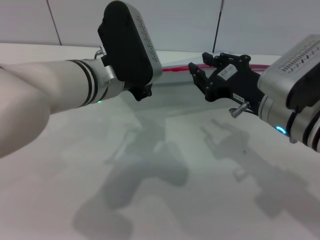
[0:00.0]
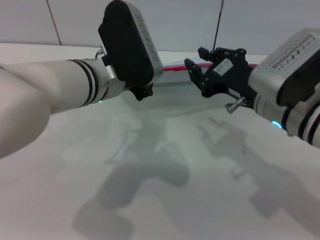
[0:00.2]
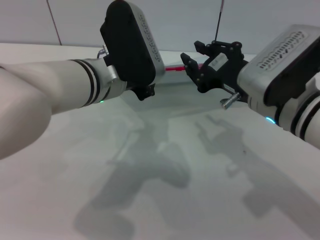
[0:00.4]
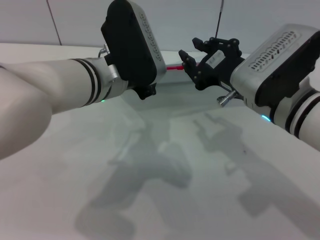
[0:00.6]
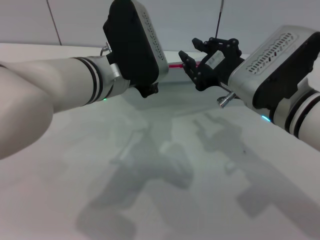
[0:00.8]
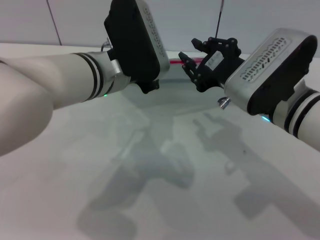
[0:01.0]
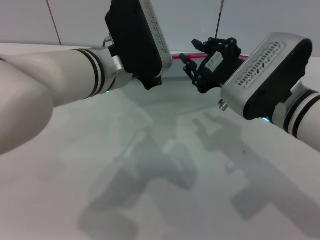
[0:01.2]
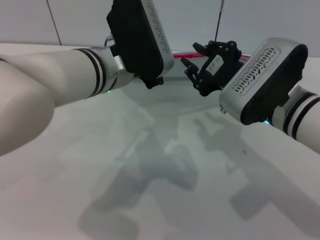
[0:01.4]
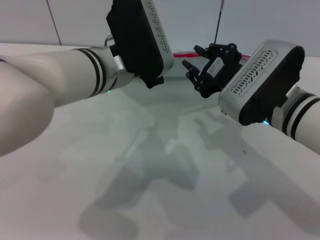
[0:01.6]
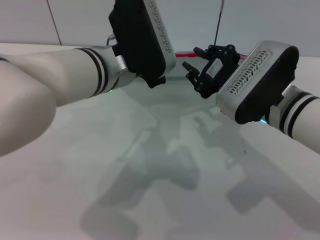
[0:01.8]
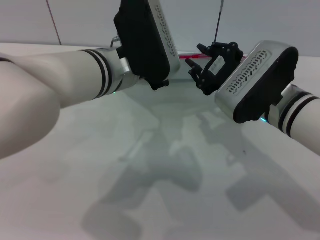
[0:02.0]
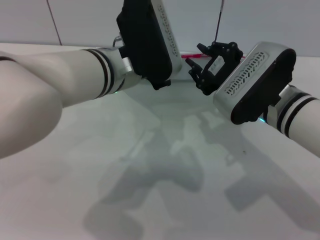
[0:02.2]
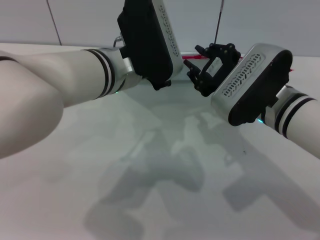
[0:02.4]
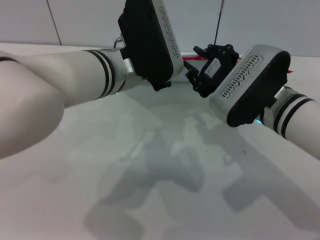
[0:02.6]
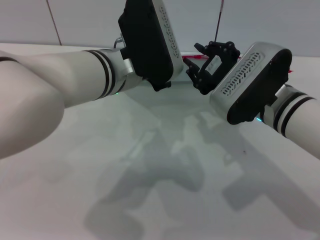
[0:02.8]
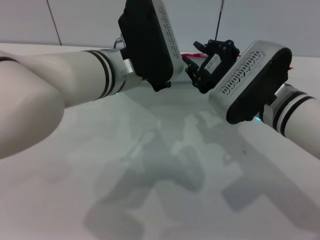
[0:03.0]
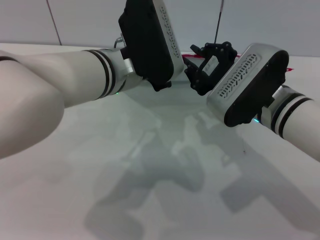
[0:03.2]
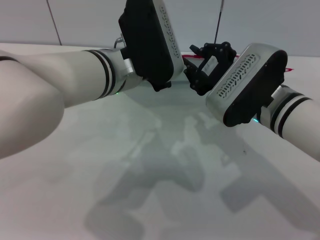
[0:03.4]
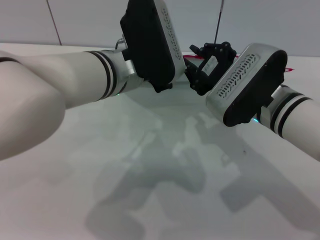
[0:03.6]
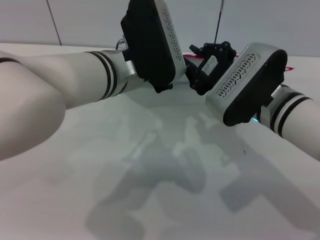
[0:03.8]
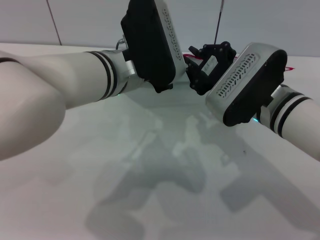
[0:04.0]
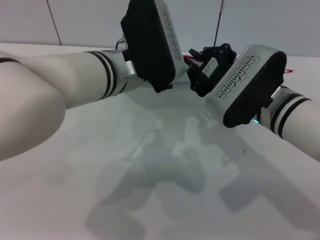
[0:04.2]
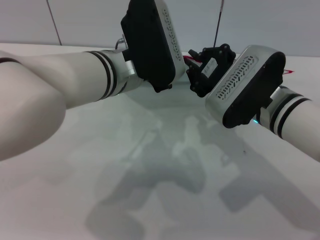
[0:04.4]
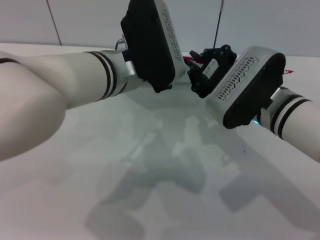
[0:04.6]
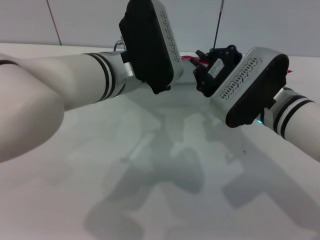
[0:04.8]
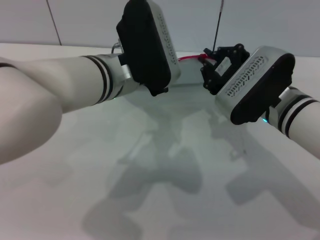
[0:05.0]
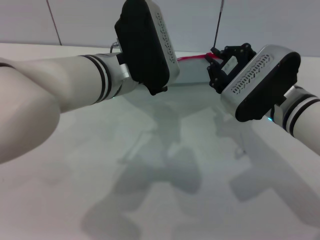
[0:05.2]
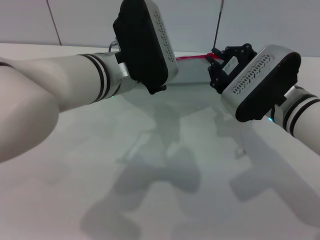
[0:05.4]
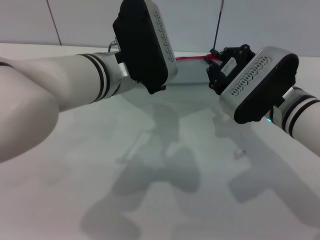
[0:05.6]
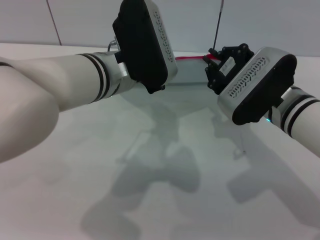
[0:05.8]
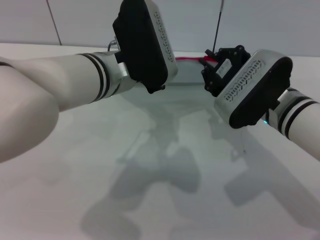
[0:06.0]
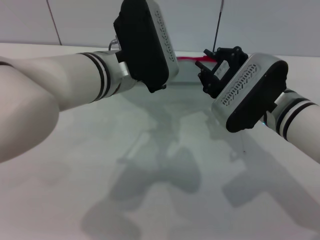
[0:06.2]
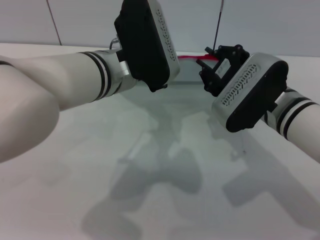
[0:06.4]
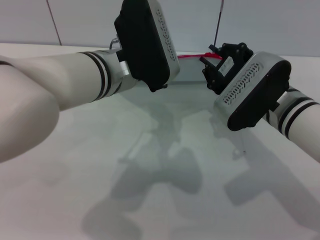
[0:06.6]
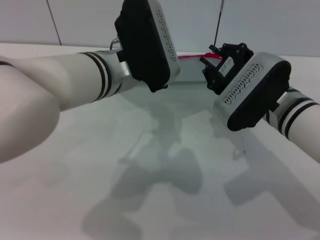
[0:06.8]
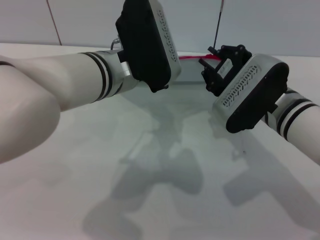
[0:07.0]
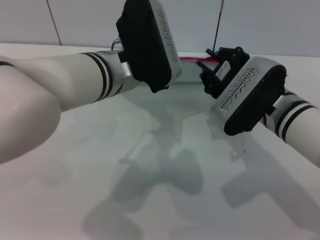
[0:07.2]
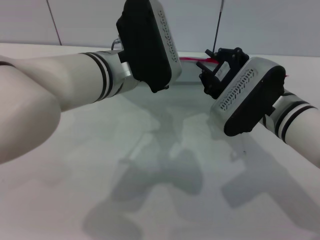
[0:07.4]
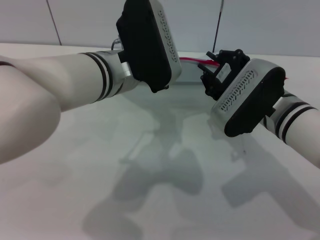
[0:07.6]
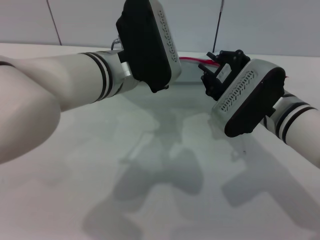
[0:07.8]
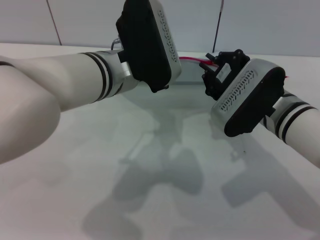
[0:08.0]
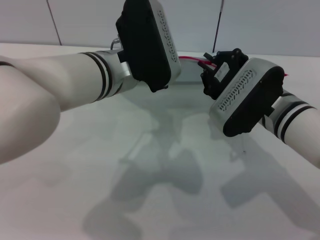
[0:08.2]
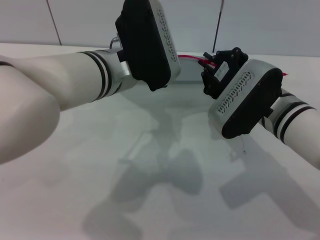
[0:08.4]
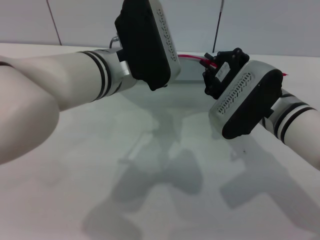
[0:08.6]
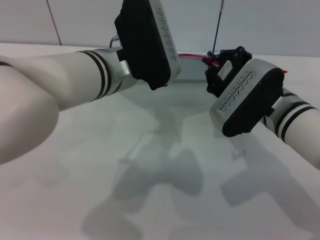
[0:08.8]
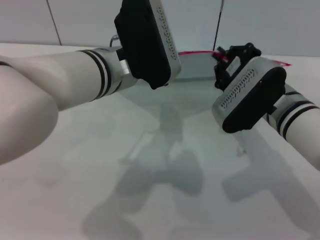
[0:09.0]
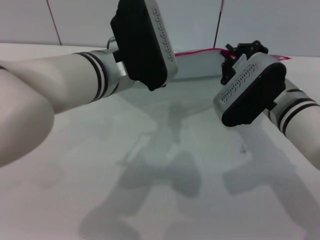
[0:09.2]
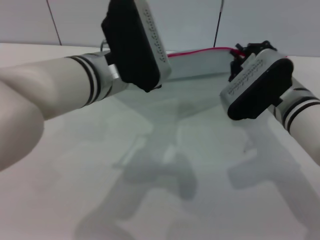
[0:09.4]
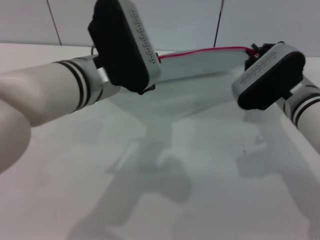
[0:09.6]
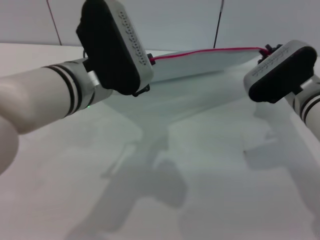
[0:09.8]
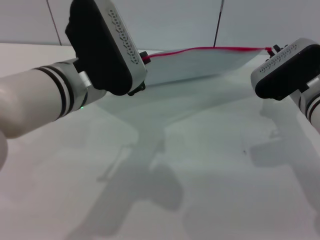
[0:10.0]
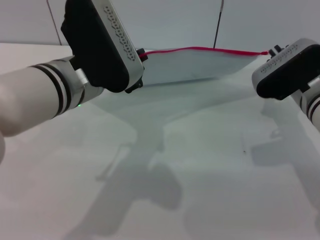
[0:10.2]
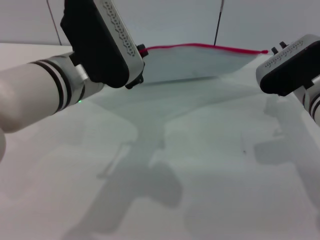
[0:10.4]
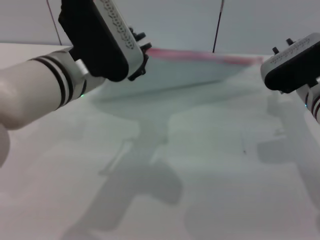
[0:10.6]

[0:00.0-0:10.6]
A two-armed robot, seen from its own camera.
Step, 0:00.0 to 0:10.4: Pulling up the zipper on the transparent plastic bag with the right gripper to close it.
0:01.6 to 0:03.0: Both grippers stay about where they are.
0:03.0 to 0:04.6: The right gripper closes.
0:04.6 to 0:06.0: There are only small adjustments of the grippers.
0:06.0 to 0:07.6: The right gripper opens.
0:07.6 to 0:09.0: The right gripper closes up.
0:09.0 to 0:10.6: The right gripper travels to the right by approximately 5 cm, and opens up.

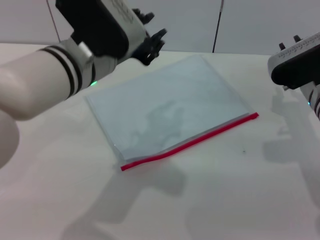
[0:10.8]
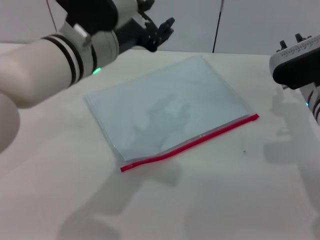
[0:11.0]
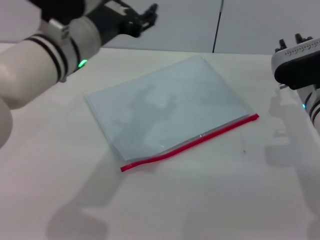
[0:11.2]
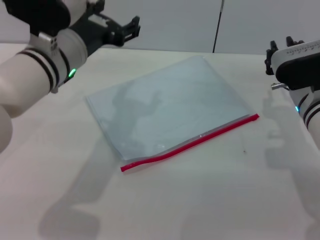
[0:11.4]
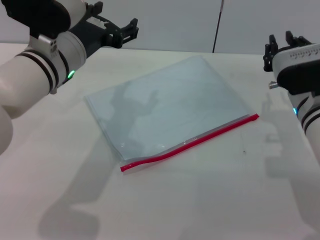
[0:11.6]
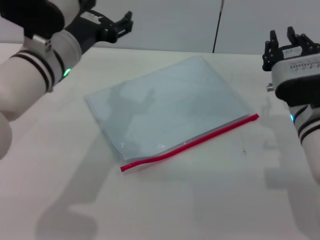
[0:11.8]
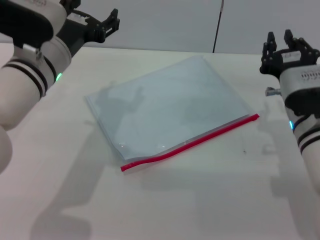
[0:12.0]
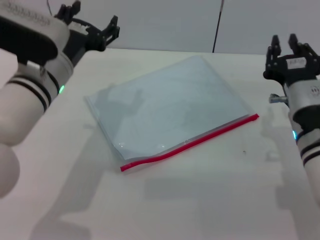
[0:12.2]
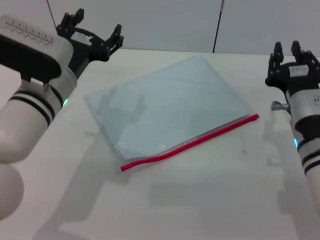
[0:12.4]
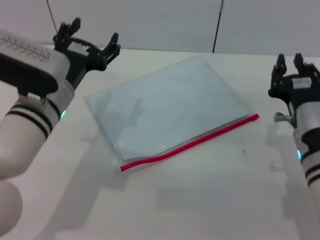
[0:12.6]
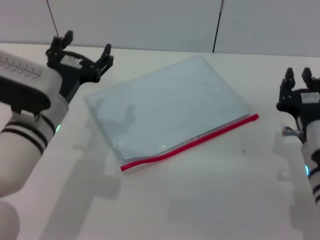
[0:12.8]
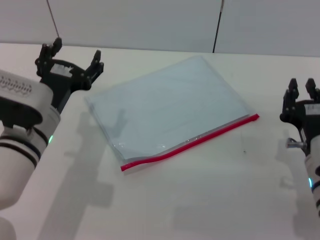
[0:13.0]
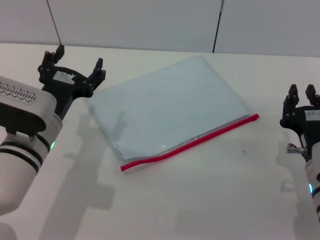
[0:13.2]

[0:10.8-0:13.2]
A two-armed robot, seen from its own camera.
0:10.8 to 0:12.0: The left gripper is displaced to the left by about 5 cm, and opens up; the right gripper heads backward, covering some 5 cm.
0:12.0 to 0:13.2: The left gripper moves backward and downward, approximately 10 cm. Meanwhile the right gripper moves backward, some 10 cm.

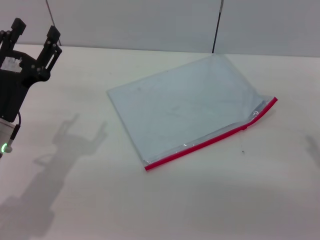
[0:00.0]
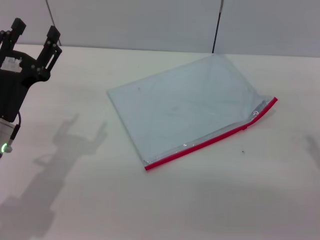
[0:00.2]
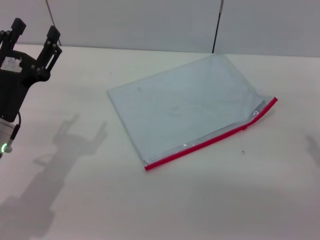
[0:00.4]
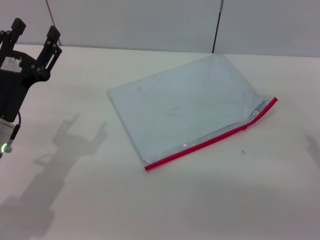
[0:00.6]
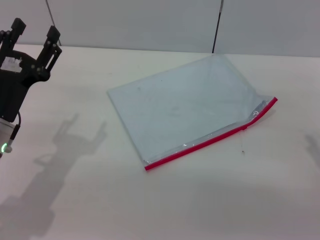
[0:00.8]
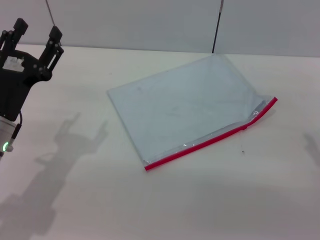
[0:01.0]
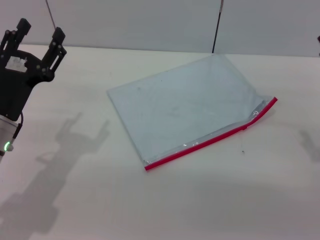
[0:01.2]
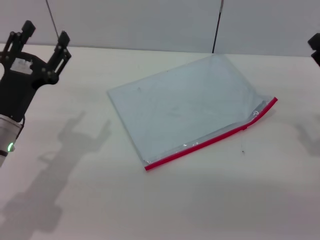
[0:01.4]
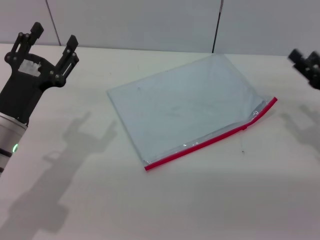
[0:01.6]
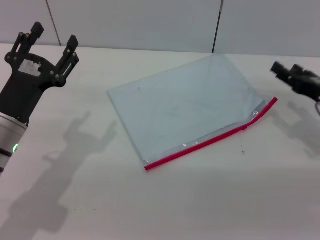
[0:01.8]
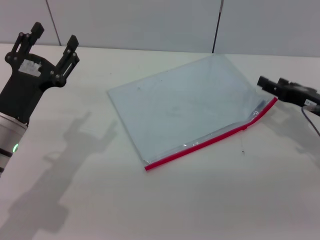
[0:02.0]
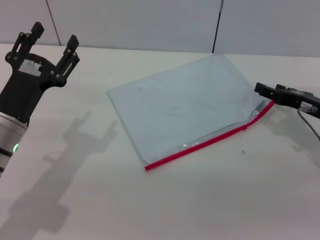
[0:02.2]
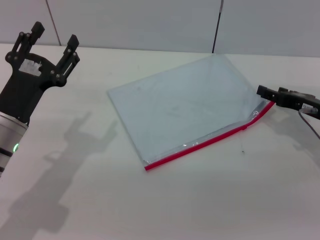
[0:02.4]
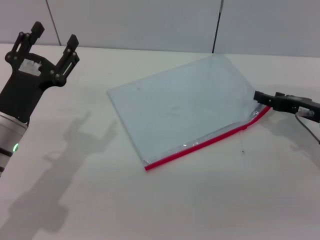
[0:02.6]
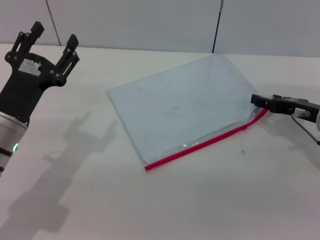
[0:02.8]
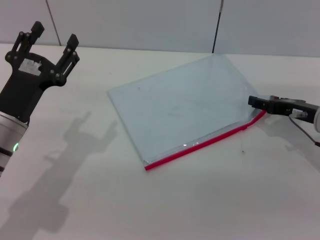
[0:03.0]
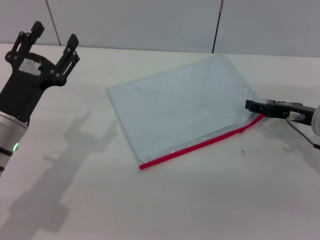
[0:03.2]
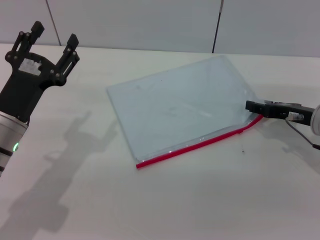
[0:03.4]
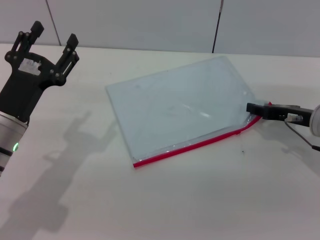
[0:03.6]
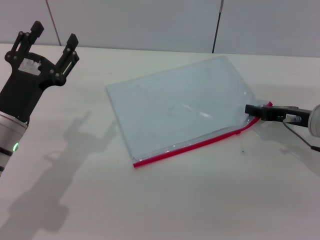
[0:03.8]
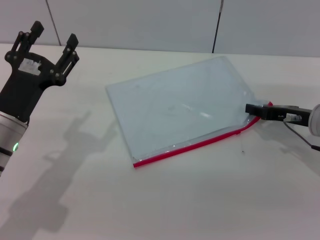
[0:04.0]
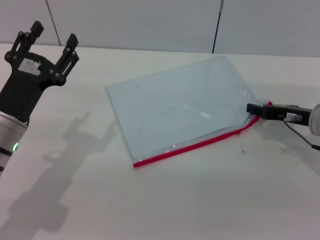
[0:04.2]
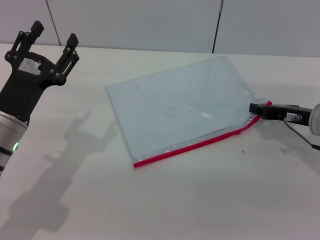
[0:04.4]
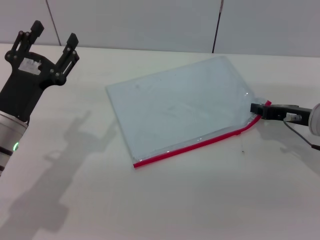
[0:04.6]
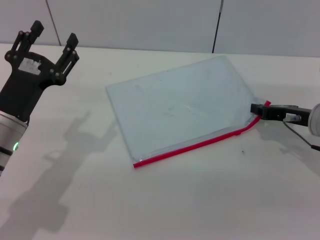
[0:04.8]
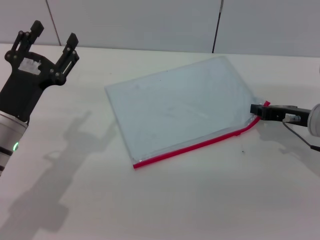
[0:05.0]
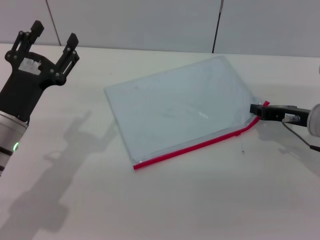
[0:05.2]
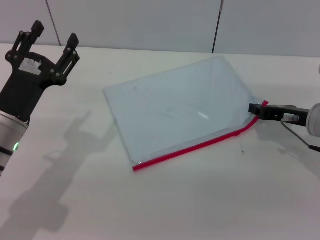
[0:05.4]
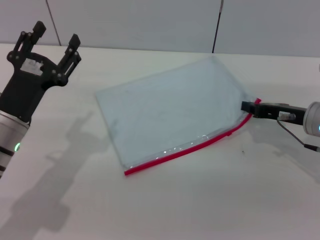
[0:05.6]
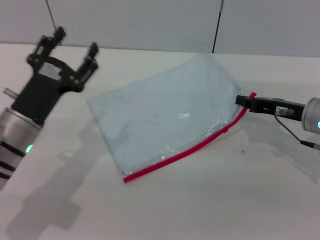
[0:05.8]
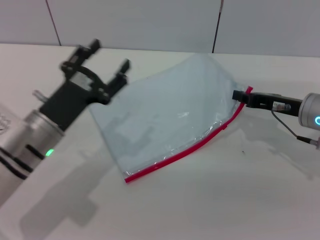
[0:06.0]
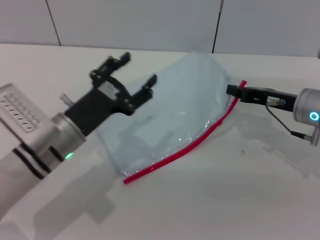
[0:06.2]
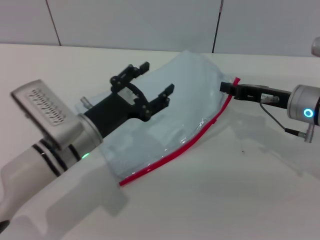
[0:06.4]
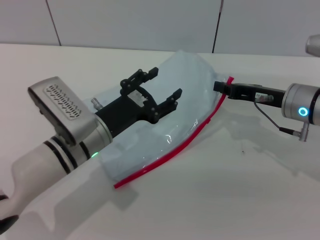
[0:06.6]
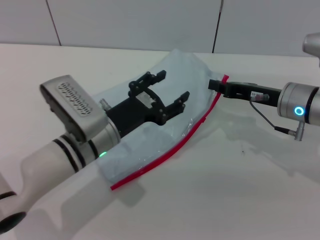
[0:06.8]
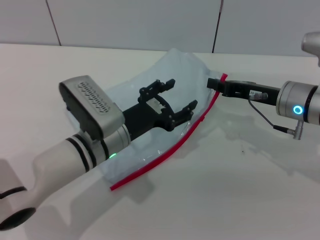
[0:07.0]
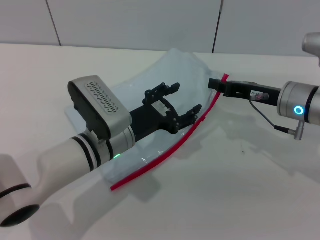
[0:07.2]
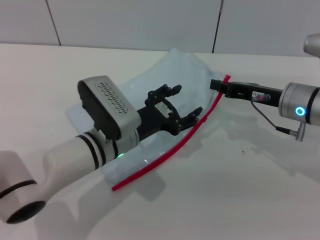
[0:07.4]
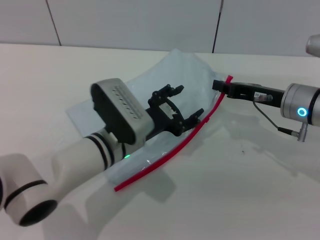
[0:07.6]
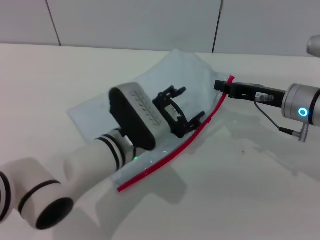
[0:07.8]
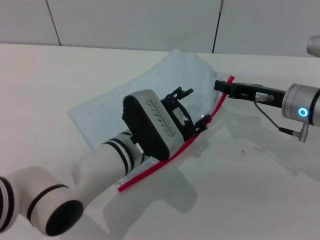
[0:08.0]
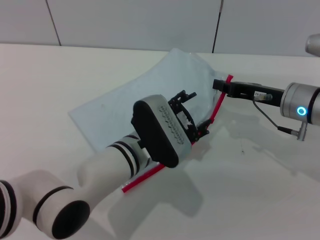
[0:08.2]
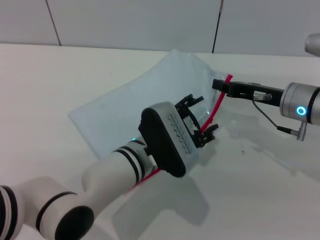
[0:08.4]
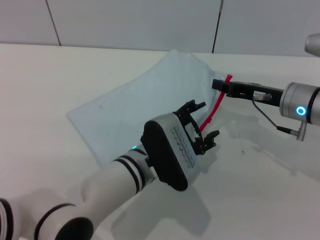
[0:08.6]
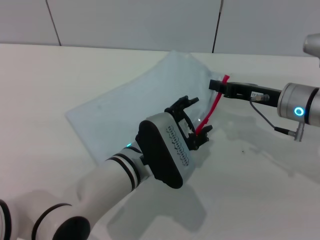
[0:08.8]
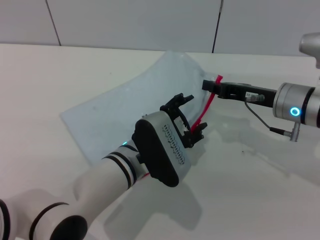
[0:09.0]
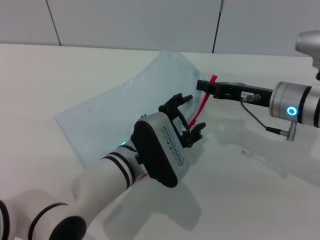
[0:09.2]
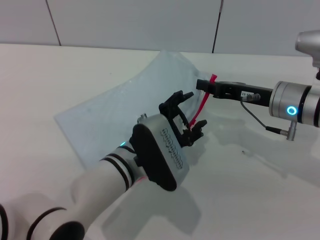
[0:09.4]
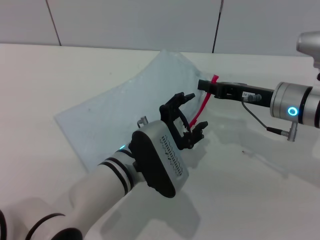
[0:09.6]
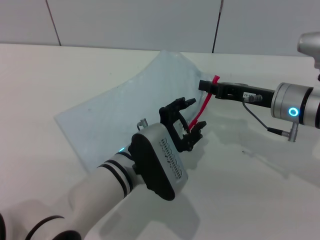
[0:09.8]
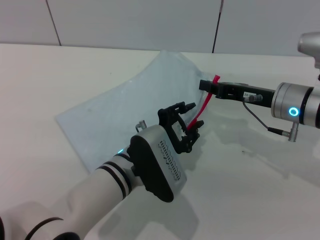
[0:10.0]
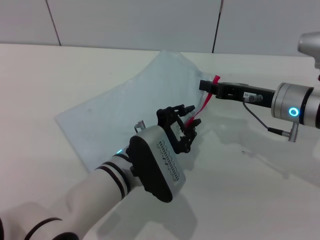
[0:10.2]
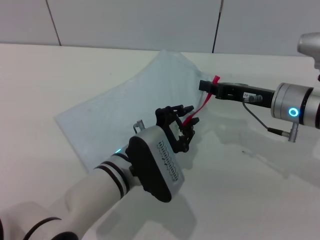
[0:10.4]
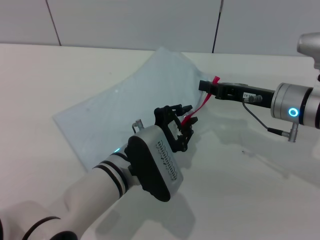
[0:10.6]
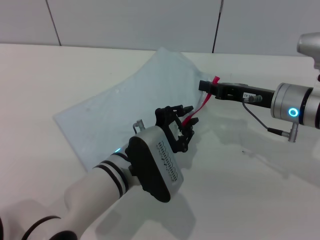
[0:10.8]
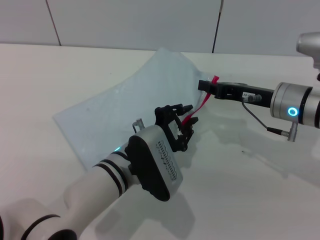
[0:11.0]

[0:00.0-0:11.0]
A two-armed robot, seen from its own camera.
Step, 0:00.0 to 0:06.0: Pick up the transparent plastic bag with the right gripper.
0:00.0 to 0:01.6: The right gripper moves forward, about 5 cm.
0:01.6 to 0:03.2: The right gripper moves about 5 cm.
0:03.2 to 0:04.8: The right gripper closes.
0:04.8 to 0:06.2: The left gripper heads to the right, covering some 5 cm.
0:06.2 to 0:07.8: The left gripper heads to the right, covering roughly 10 cm.
0:09.4 to 0:11.0: The left gripper closes its fingers.
